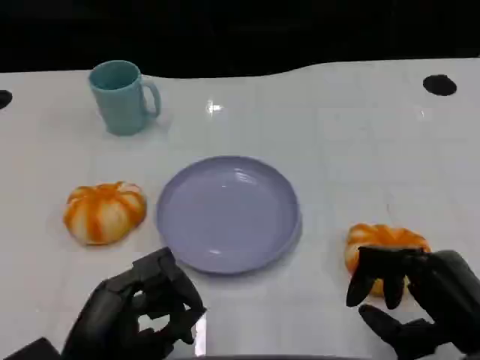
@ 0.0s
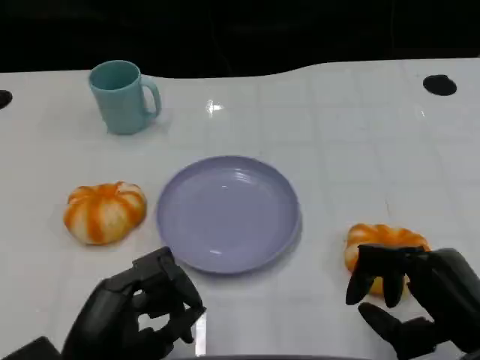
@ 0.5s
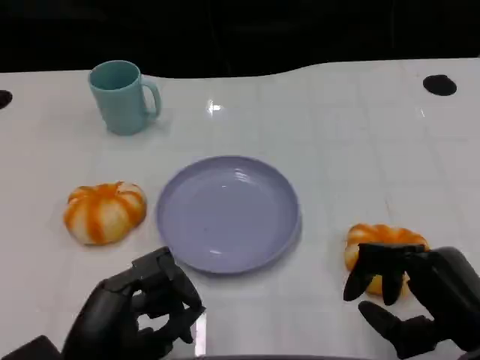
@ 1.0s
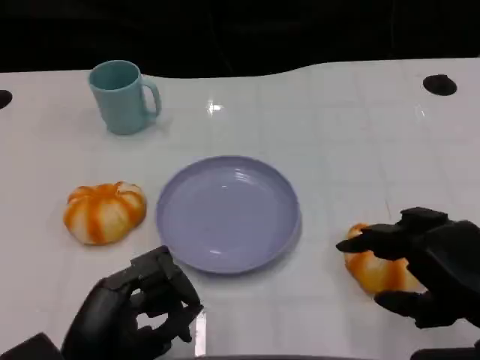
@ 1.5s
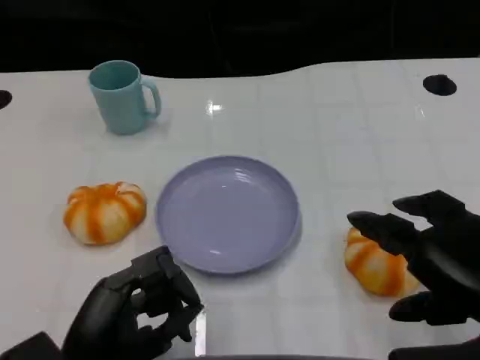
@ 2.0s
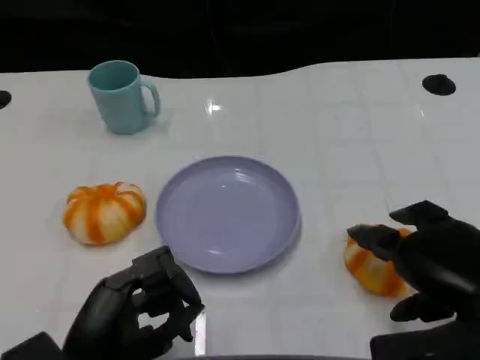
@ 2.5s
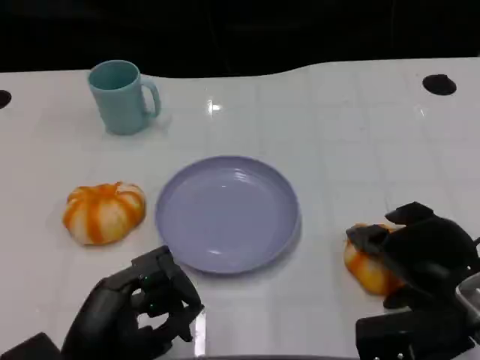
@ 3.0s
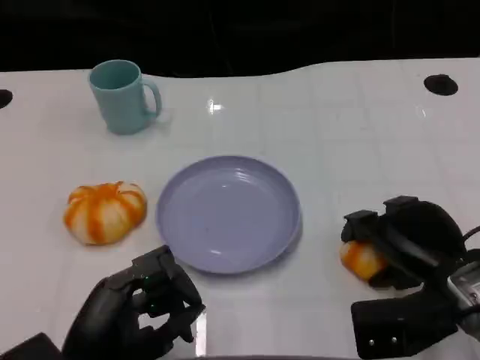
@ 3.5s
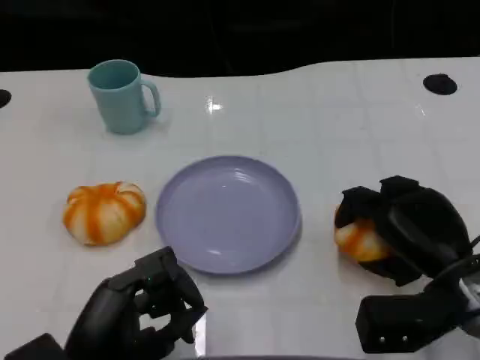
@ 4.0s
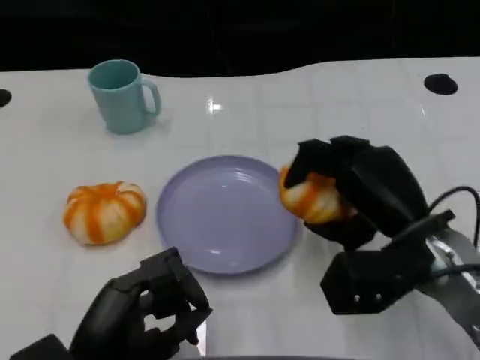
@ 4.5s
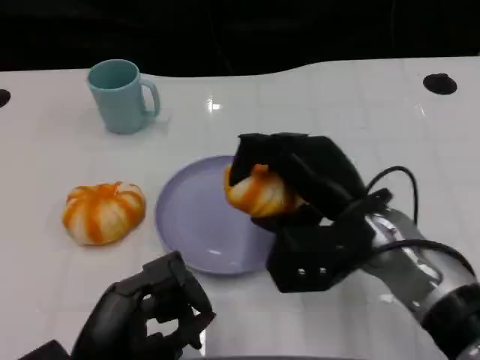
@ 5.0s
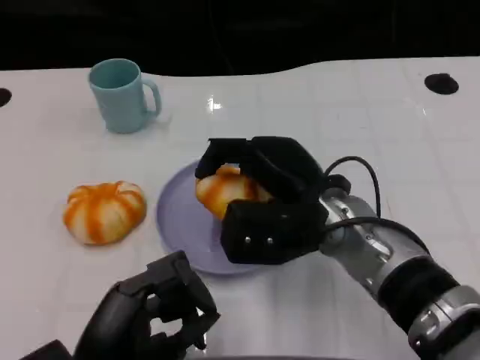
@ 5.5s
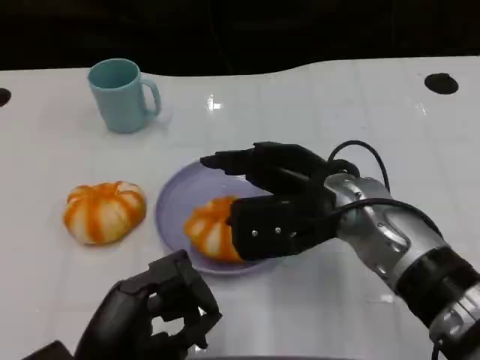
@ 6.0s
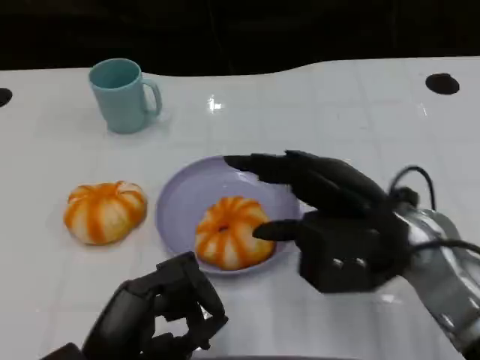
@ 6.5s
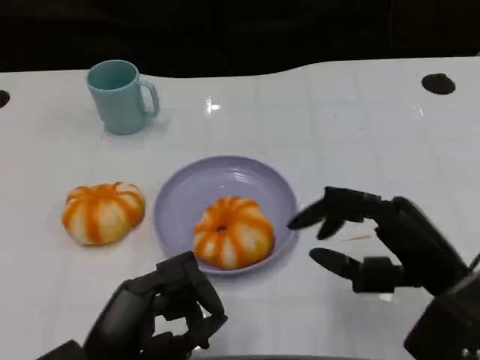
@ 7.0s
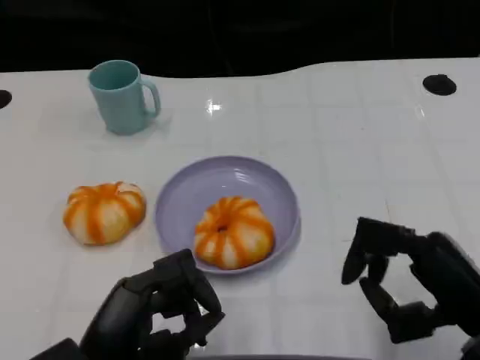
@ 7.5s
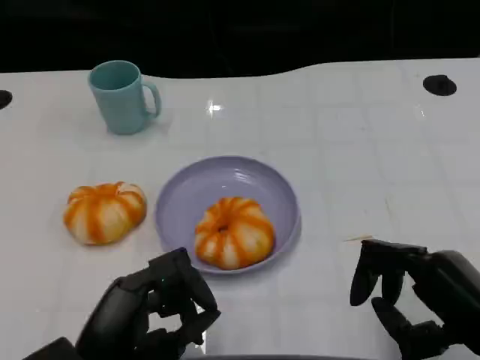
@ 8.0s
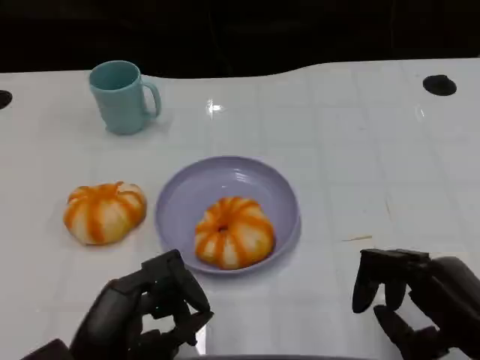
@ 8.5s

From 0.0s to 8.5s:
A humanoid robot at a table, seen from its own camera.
Task of the whole recording: Grasp the bread from the table and place it into the plate.
From 0.0s to 2.0s: The right hand is displaced upward by about 10 cm.
From 2.0s to 4.0s: The right hand goes roughly 10 cm forward and downward.
From 4.0s to 6.5s: The right hand moves upward and to the left, approximately 10 cm.
From 6.5s to 8.5s: The right hand shifts approximately 15 cm backward, to the right and downward.

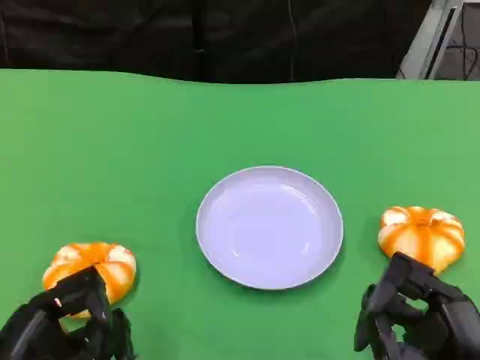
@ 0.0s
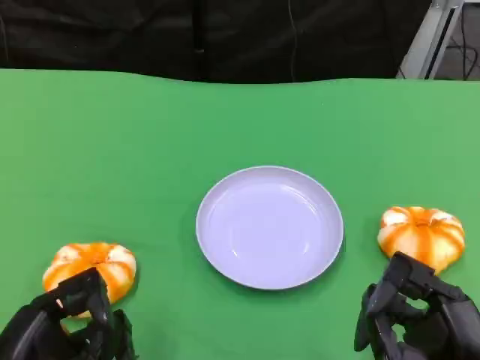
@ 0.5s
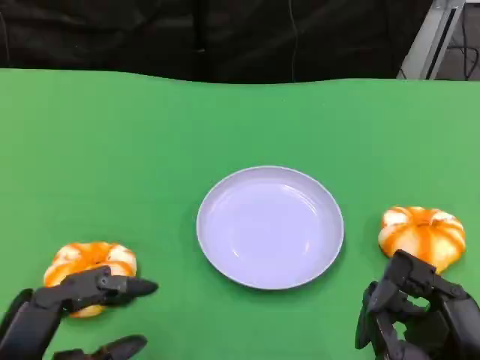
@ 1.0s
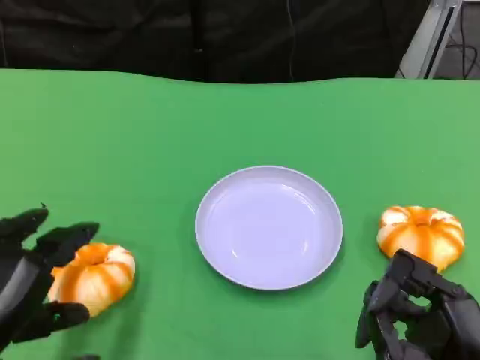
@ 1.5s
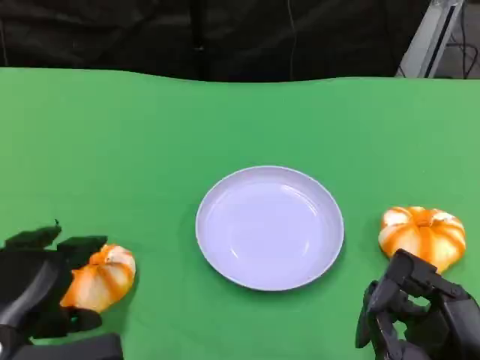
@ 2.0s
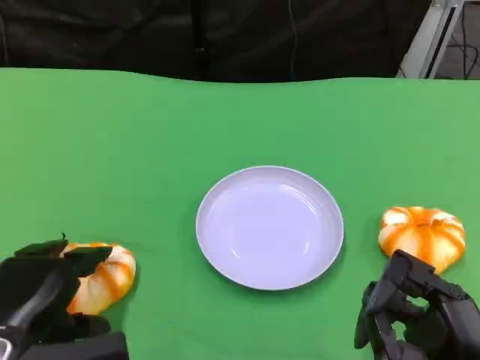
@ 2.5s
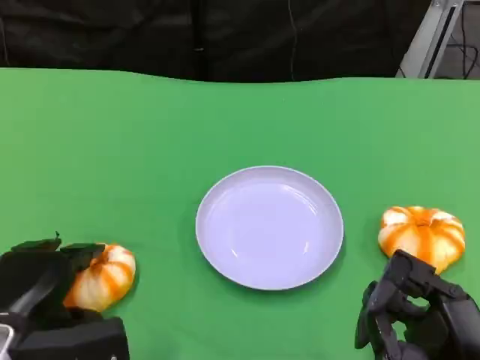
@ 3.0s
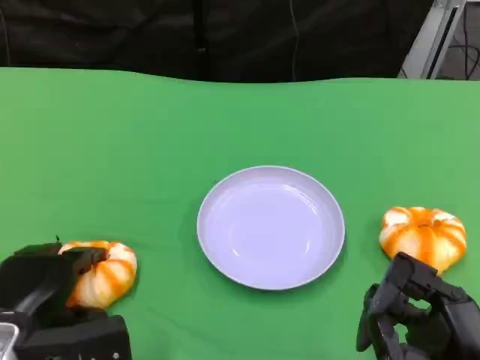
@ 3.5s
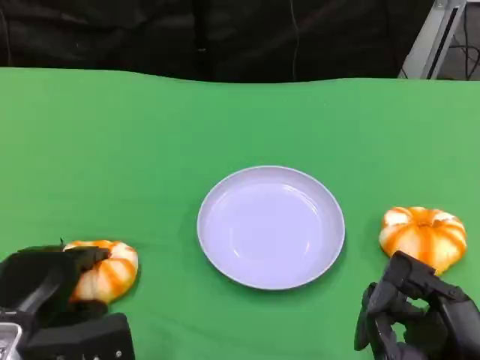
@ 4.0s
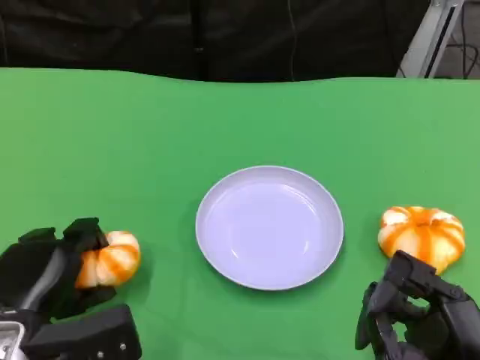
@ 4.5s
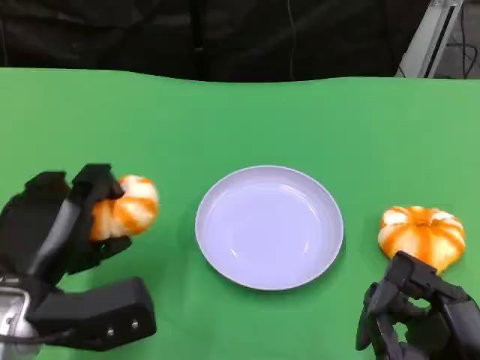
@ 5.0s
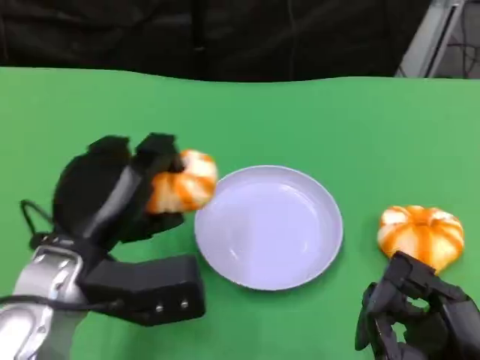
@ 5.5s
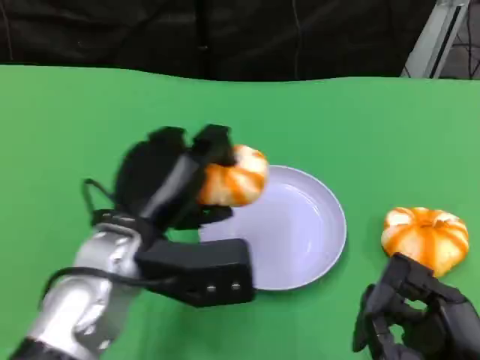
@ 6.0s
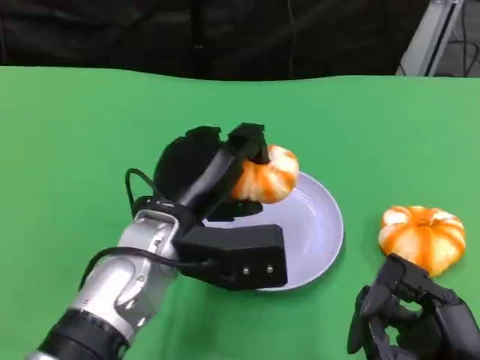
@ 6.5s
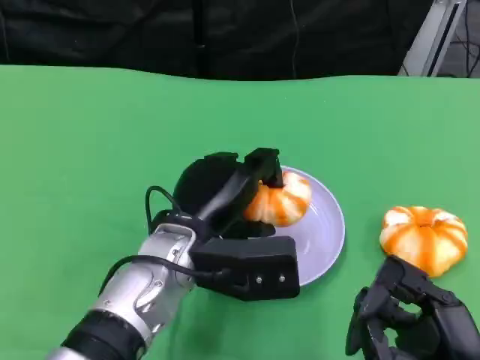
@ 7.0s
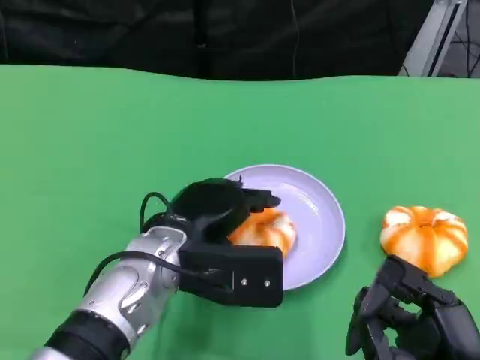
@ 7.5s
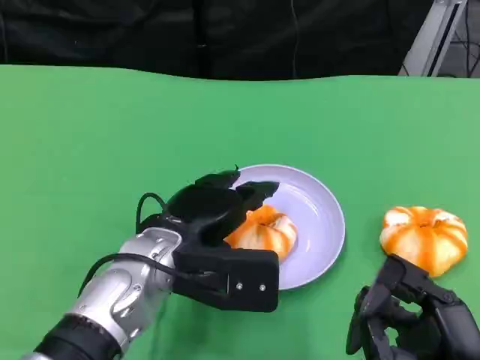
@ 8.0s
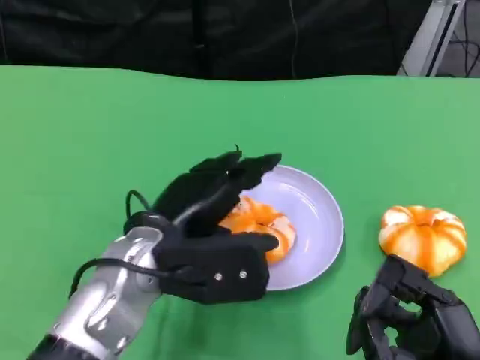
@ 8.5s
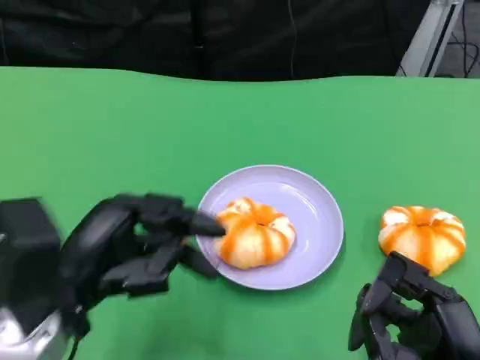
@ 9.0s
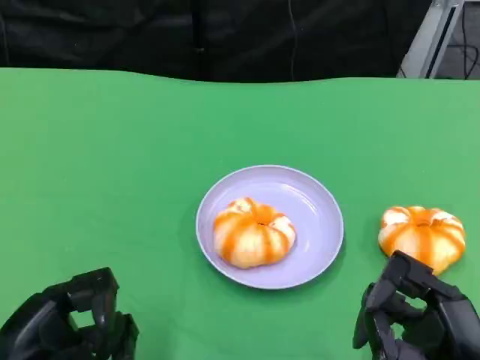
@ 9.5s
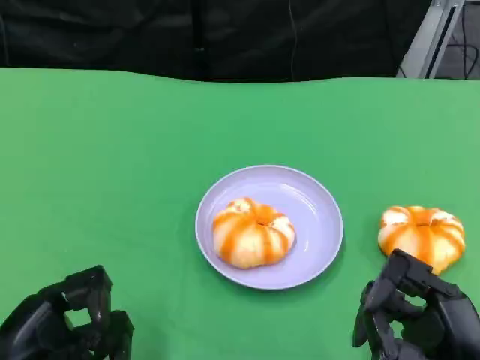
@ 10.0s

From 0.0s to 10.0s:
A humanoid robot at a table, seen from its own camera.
Task of the whole recording: Grasp the bread from the table and place it into the plate.
From 0.0s to 2.0s: The left hand shifts about 5 cm forward.
From 2.0s to 4.0s: The hands move only a little.
From 4.0s to 6.0s: The left hand shifts about 15 cm to the right, upward and forward.
From 8.0s to 10.0s: The left hand goes some 20 cm to the left and backward.
